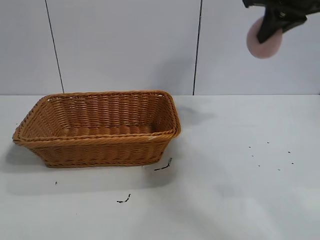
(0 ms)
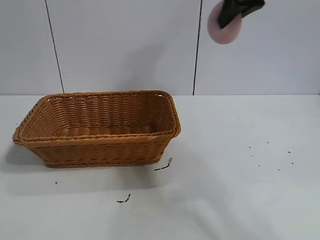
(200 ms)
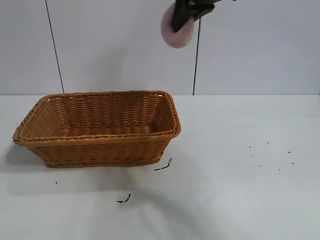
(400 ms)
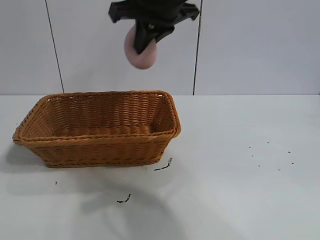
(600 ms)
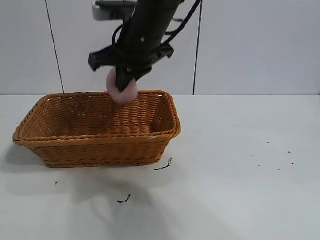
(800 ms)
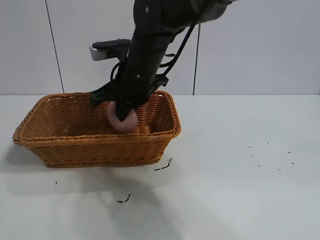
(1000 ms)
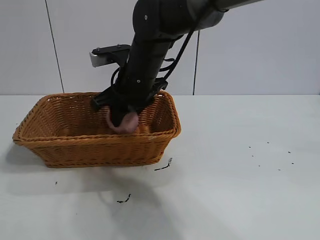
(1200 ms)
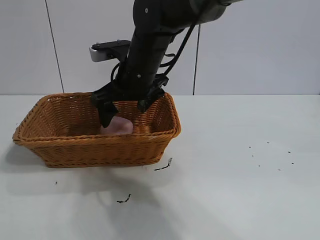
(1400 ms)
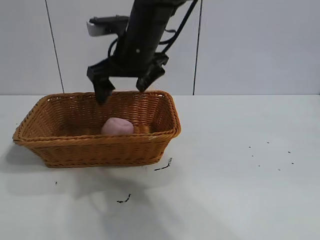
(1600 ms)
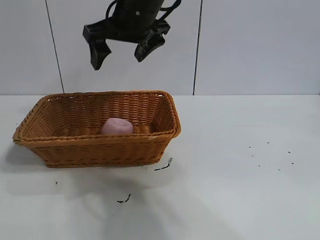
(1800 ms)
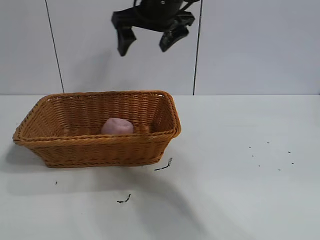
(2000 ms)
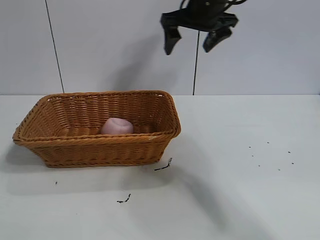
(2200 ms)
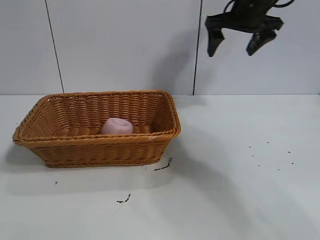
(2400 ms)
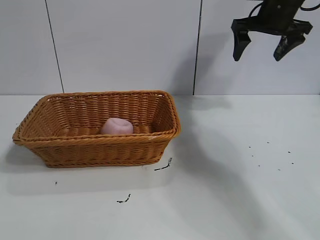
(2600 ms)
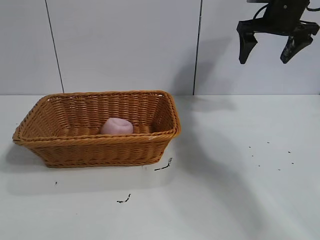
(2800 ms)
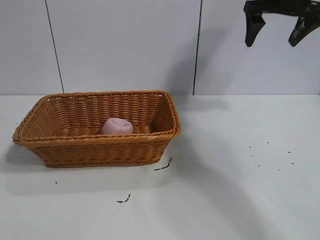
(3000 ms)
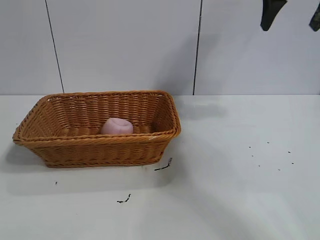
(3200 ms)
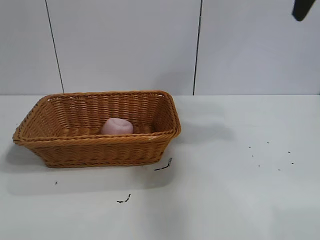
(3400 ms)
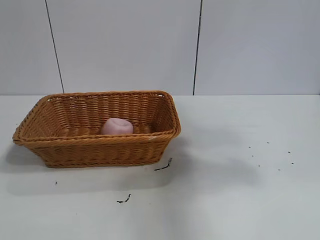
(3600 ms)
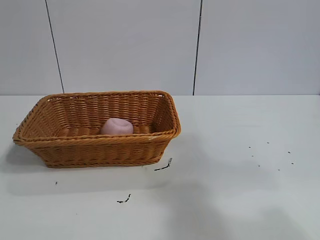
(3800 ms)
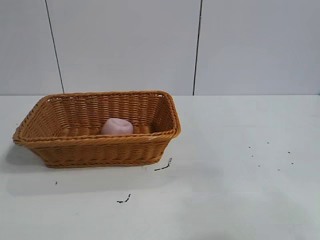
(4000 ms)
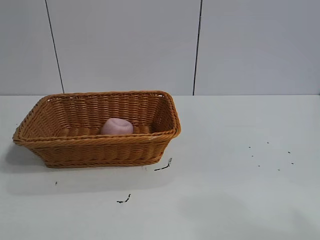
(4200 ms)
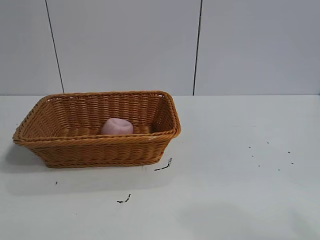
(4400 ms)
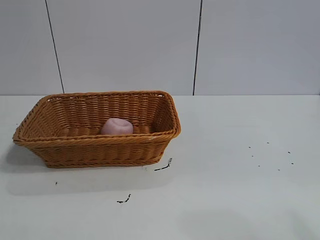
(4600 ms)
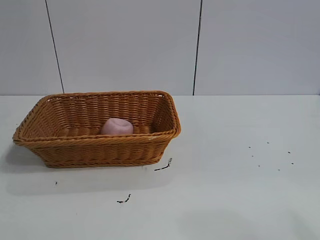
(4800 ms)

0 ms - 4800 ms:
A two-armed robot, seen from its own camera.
Task of the whole recording: pick up the peach and put it into the basket.
Step, 0 ms - 1200 ms: Place the peach in the basket with right gripper.

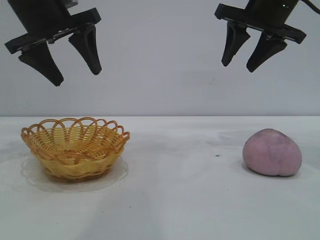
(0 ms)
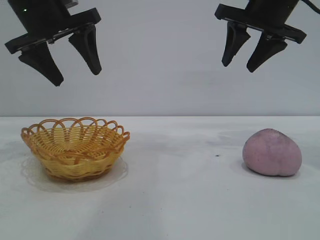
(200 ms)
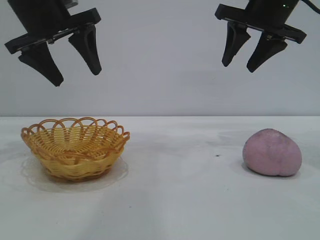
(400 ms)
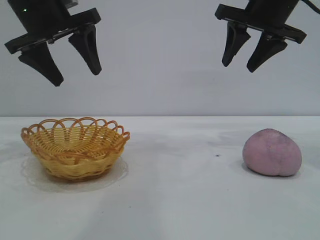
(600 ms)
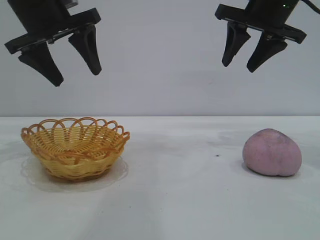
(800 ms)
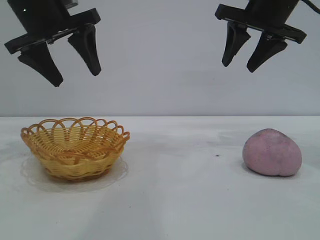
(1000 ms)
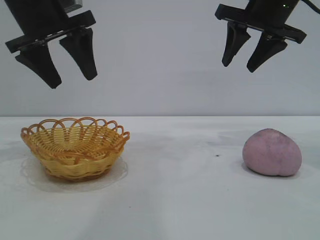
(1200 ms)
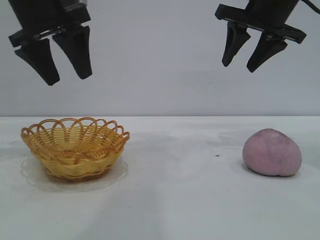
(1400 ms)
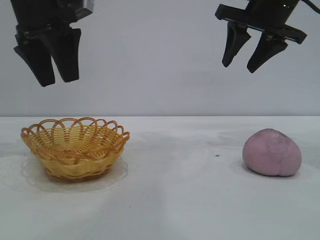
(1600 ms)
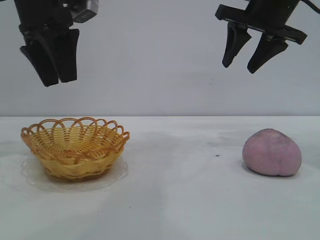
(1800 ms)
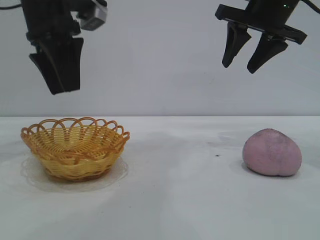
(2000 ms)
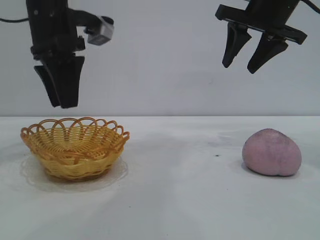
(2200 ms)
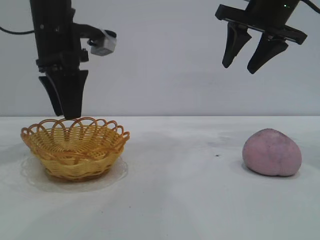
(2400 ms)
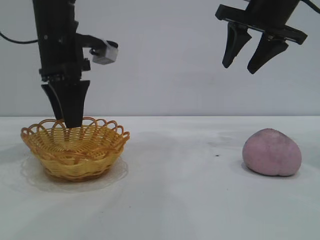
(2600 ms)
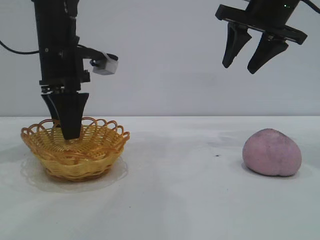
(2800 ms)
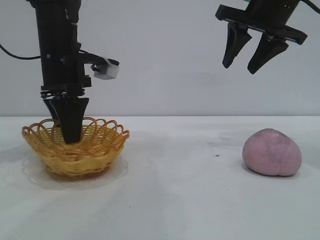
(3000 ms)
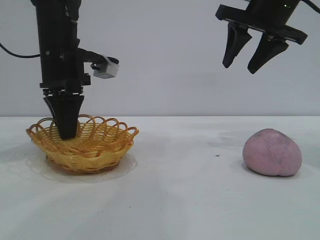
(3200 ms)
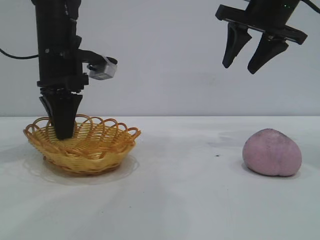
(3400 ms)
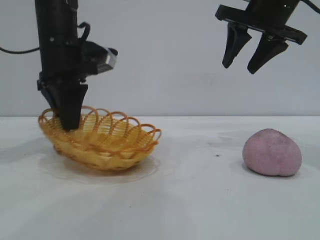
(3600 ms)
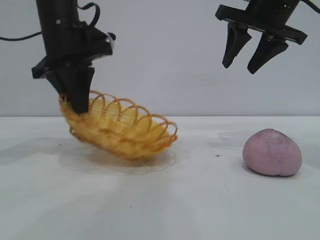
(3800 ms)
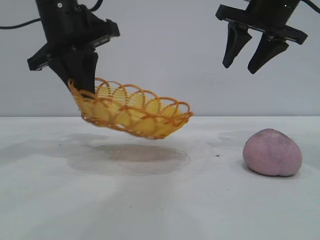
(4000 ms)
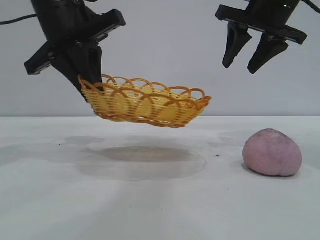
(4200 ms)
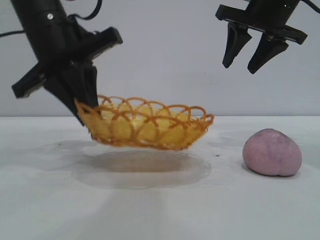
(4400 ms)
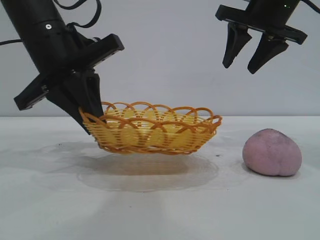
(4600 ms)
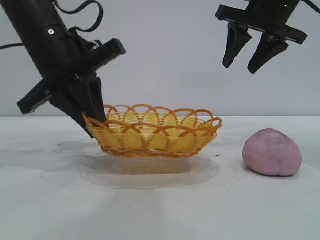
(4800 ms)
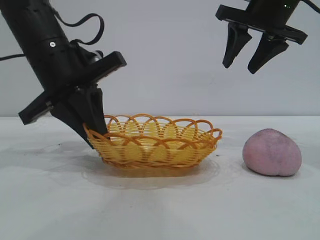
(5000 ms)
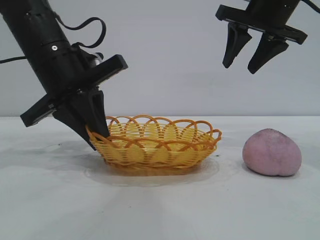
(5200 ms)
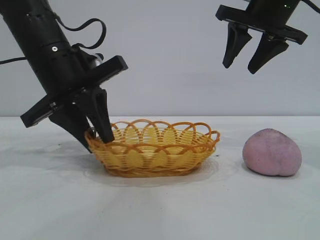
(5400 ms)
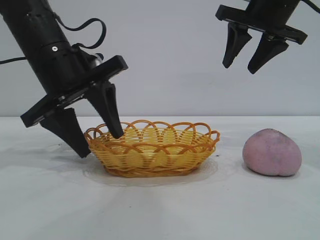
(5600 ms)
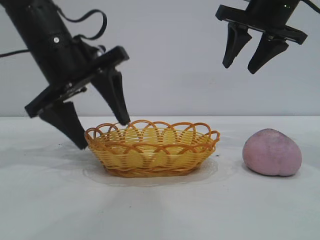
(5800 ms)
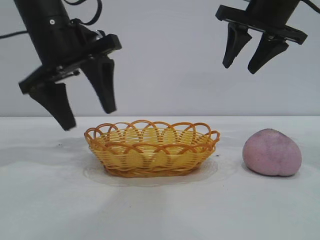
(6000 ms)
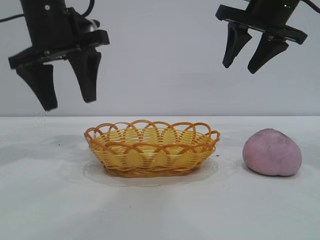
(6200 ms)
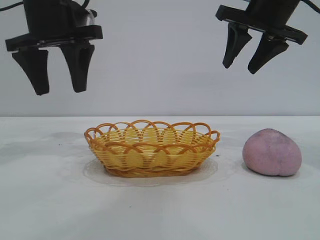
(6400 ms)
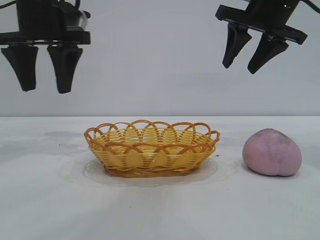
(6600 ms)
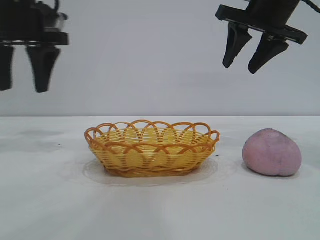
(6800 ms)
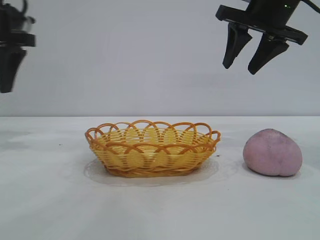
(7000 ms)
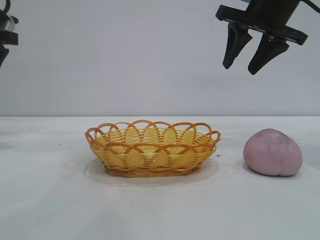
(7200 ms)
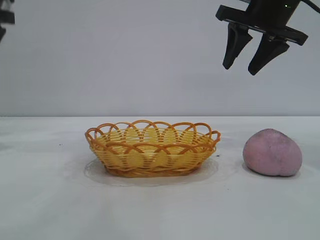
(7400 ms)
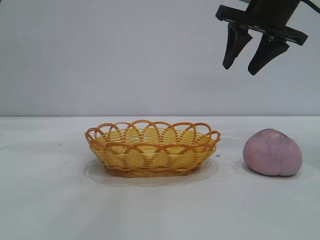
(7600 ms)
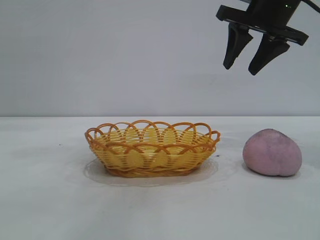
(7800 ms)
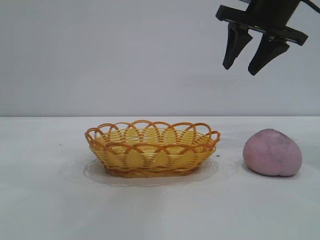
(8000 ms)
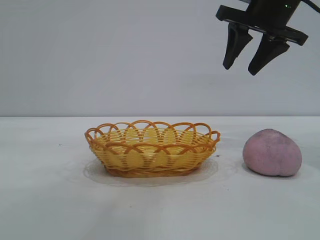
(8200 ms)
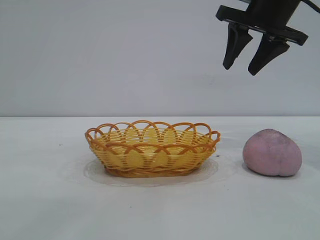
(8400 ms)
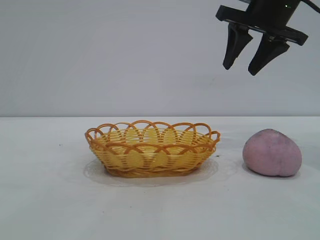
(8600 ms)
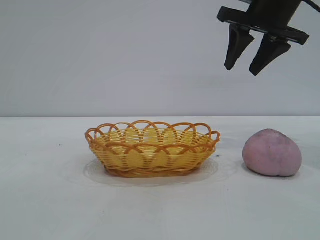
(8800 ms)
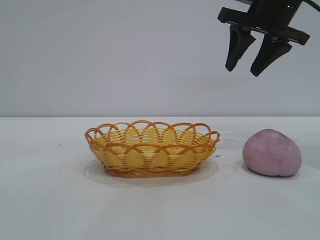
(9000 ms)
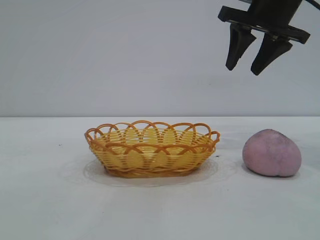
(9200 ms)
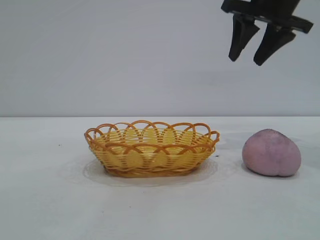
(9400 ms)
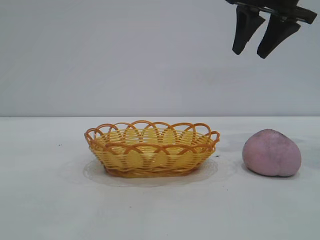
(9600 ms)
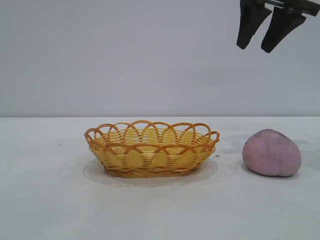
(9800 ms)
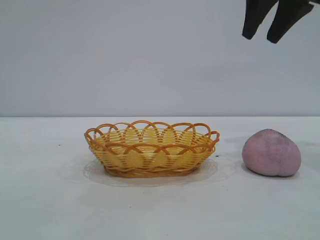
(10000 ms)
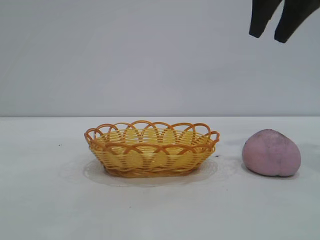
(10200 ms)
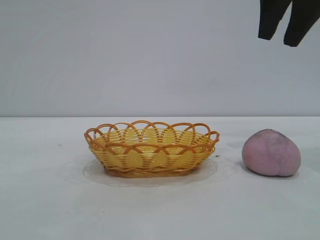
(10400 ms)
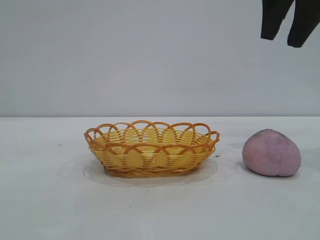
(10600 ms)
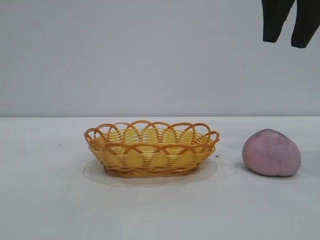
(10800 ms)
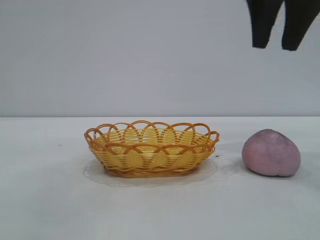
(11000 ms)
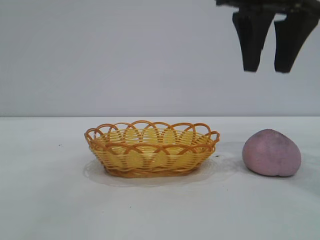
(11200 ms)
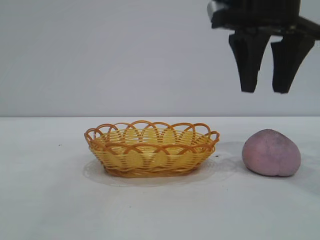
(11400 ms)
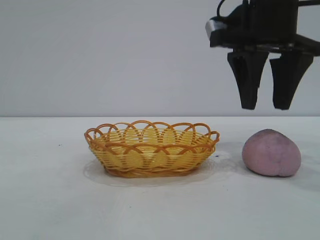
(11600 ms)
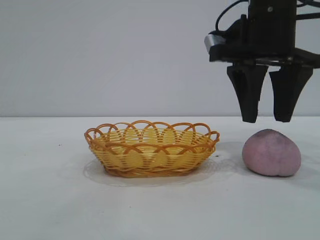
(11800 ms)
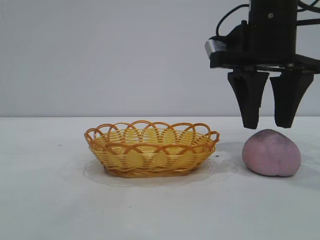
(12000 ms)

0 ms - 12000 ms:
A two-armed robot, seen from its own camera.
Task of the whole recording: pick up the peach and put it into the basket.
Step, 0 ms - 6200 ms: Move the basket to the center of view.

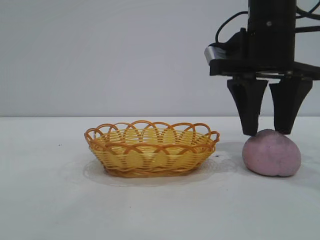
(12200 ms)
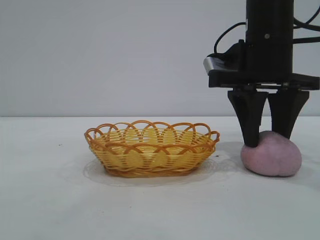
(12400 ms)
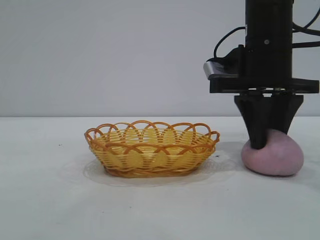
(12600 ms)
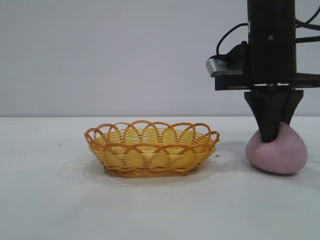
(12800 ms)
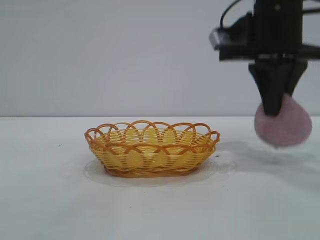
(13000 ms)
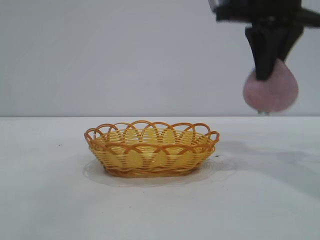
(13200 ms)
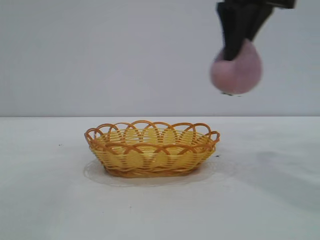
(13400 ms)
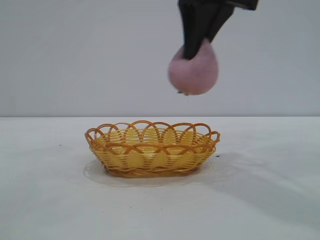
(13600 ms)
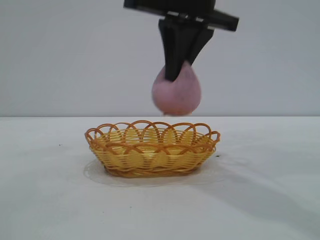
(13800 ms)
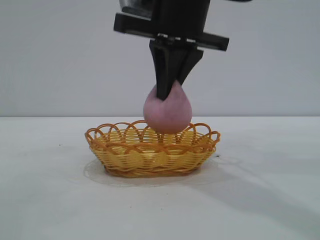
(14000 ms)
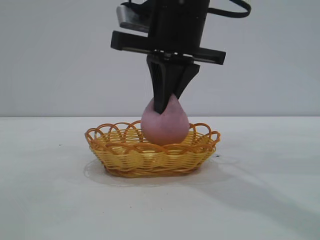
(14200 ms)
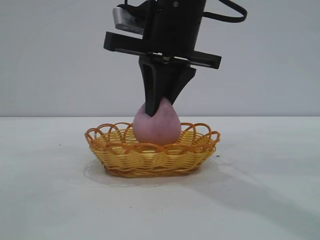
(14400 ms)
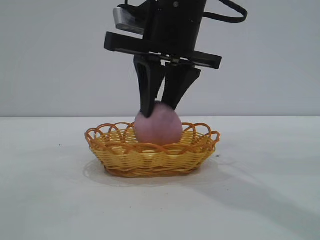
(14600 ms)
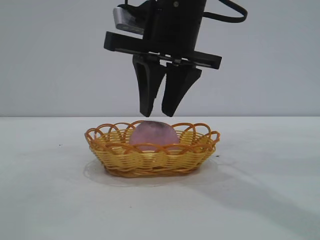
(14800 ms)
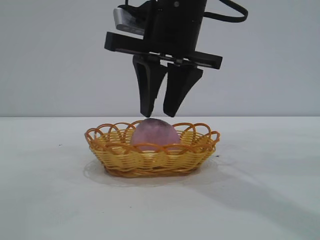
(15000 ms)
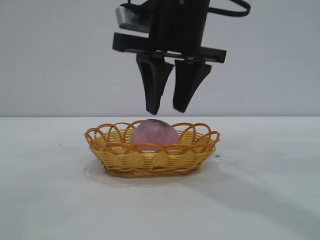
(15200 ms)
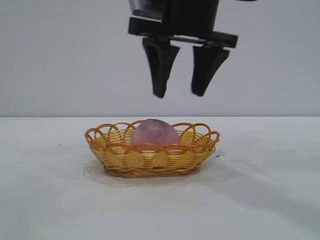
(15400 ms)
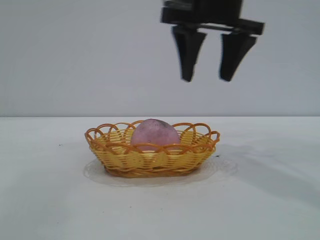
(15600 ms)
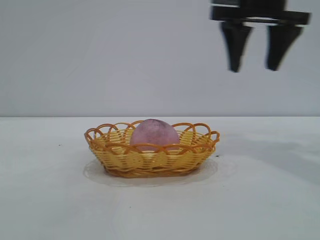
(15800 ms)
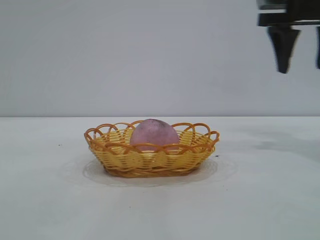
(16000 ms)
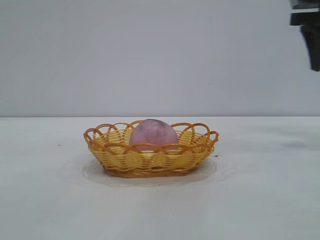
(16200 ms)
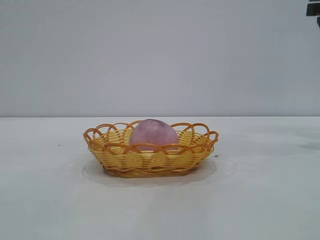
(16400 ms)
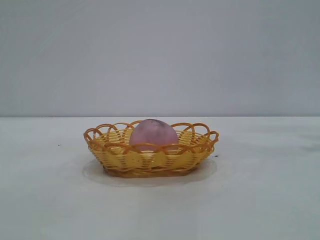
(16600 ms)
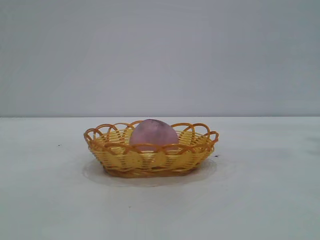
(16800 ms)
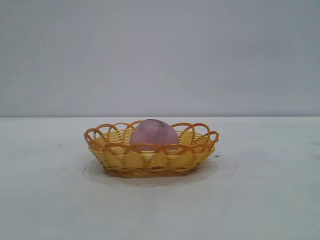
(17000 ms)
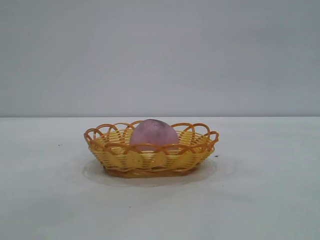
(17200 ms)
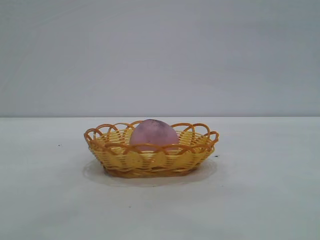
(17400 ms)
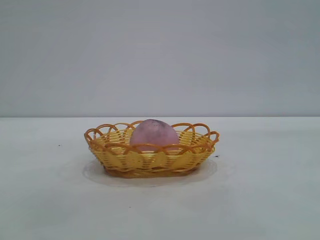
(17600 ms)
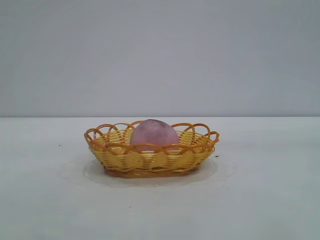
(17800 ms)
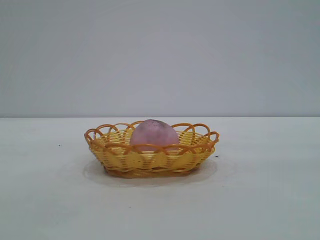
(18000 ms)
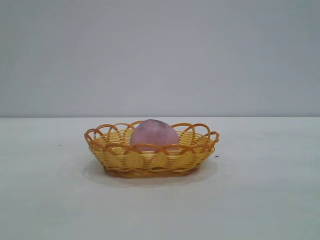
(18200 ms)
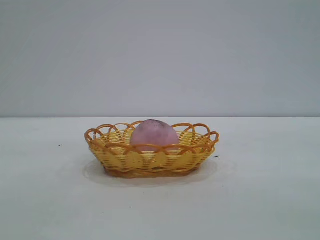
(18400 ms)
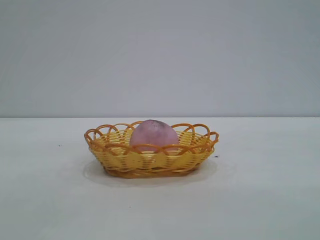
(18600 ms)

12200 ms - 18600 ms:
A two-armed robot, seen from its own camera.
Task of the whole recording: pick up the peach and put it into the basket.
Step, 13200 ms - 15400 ms: place the peach into the basket.
